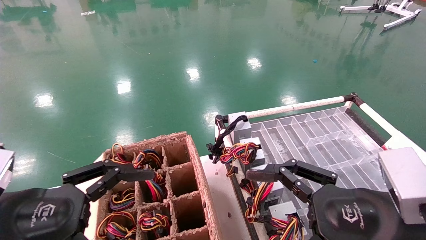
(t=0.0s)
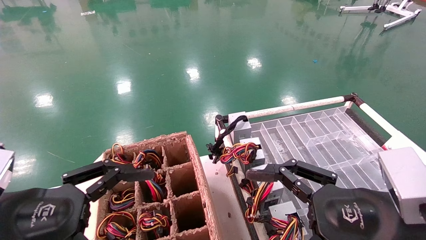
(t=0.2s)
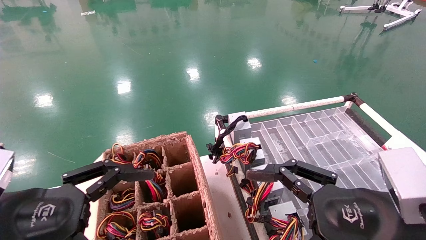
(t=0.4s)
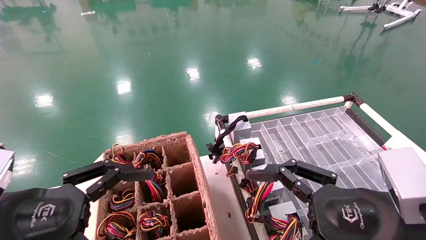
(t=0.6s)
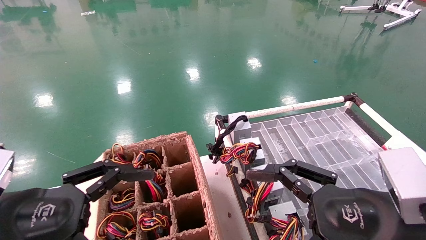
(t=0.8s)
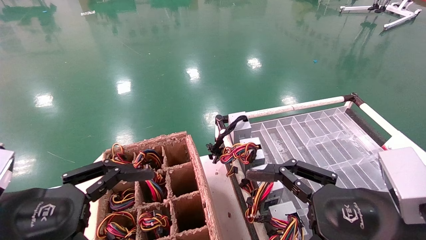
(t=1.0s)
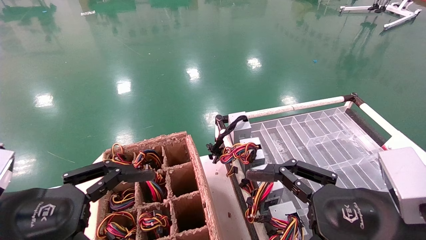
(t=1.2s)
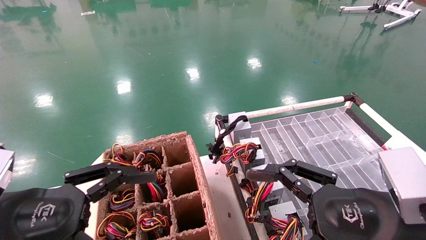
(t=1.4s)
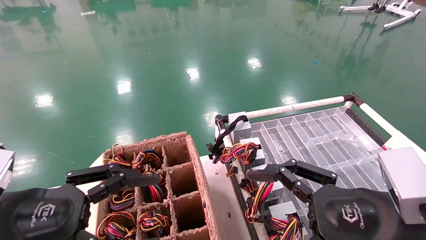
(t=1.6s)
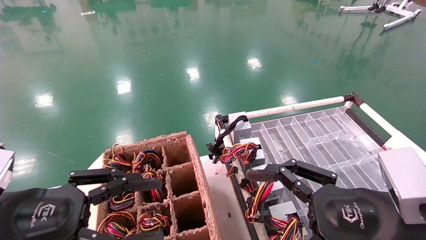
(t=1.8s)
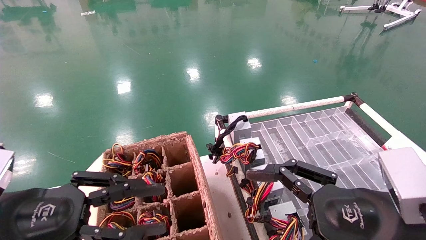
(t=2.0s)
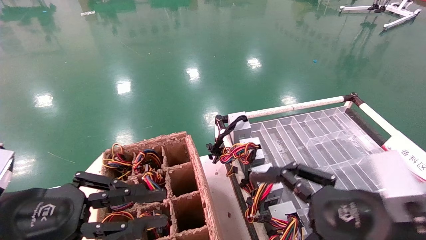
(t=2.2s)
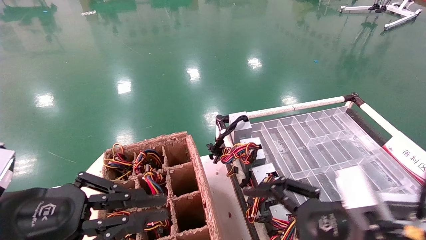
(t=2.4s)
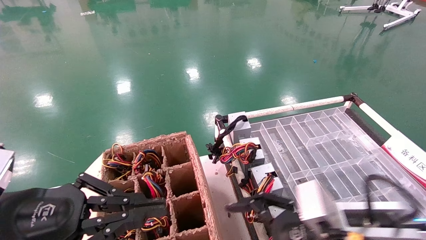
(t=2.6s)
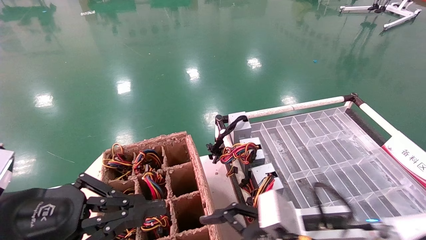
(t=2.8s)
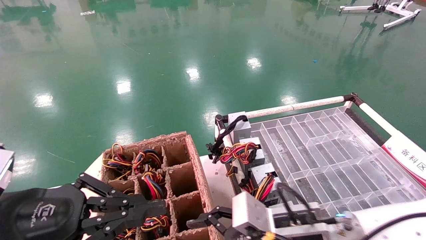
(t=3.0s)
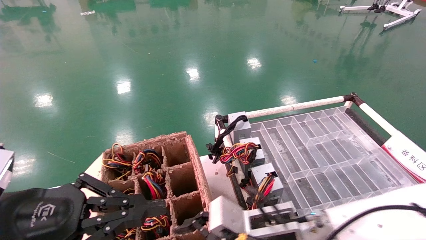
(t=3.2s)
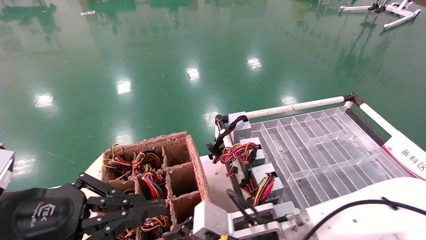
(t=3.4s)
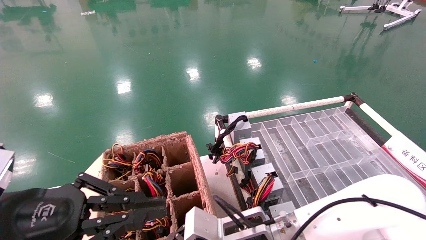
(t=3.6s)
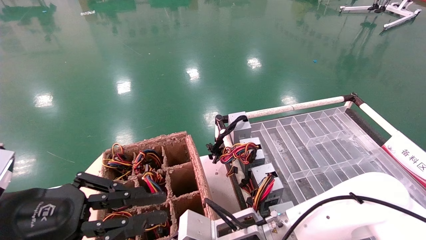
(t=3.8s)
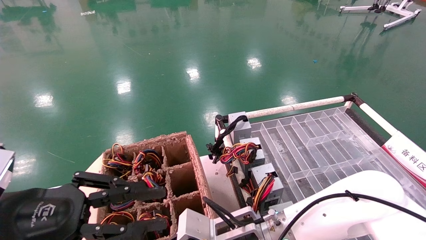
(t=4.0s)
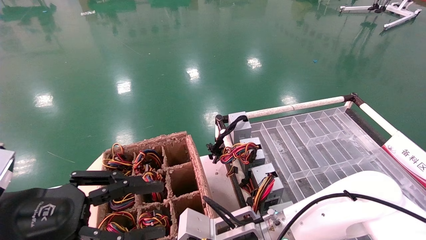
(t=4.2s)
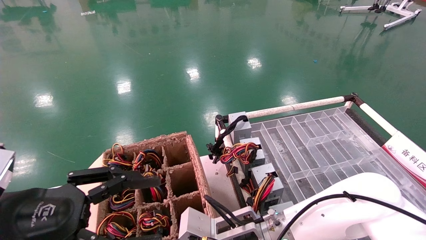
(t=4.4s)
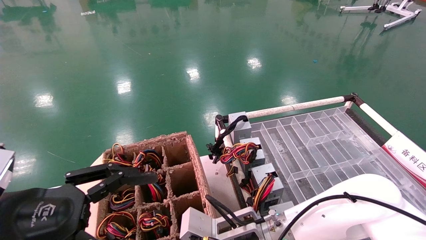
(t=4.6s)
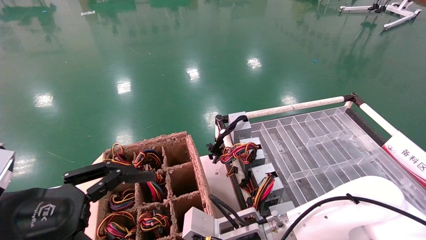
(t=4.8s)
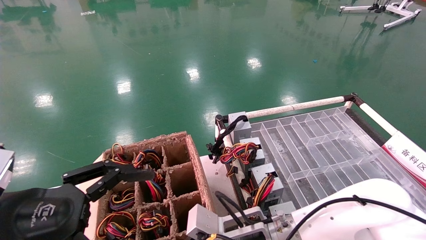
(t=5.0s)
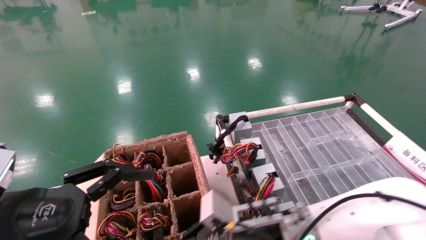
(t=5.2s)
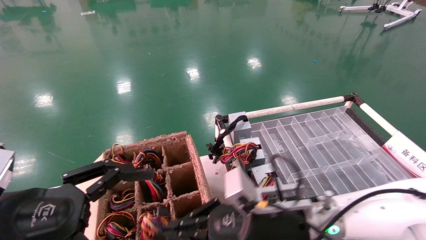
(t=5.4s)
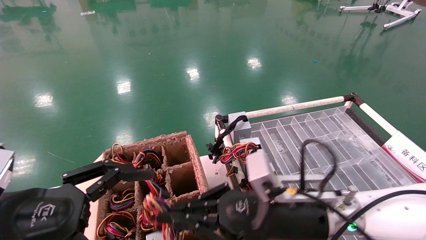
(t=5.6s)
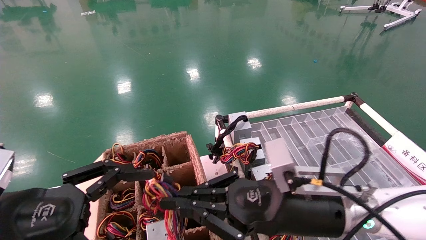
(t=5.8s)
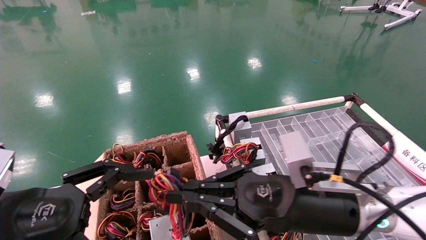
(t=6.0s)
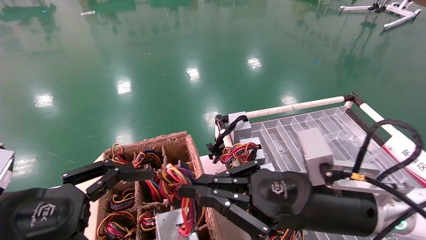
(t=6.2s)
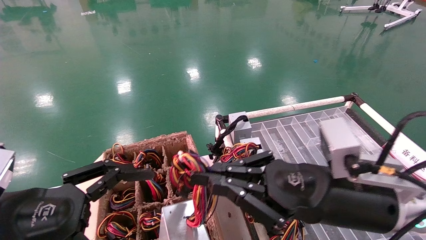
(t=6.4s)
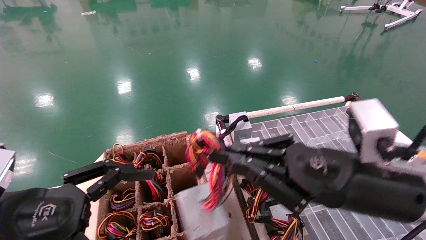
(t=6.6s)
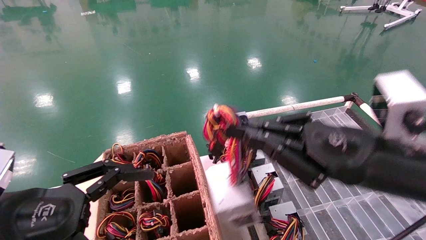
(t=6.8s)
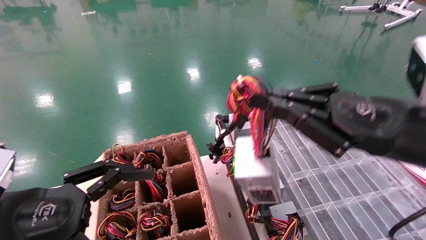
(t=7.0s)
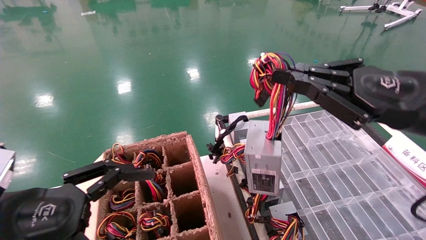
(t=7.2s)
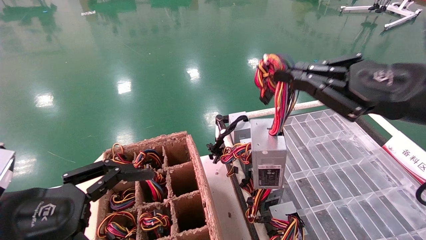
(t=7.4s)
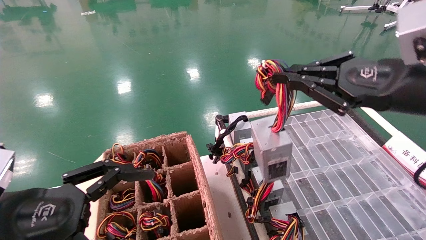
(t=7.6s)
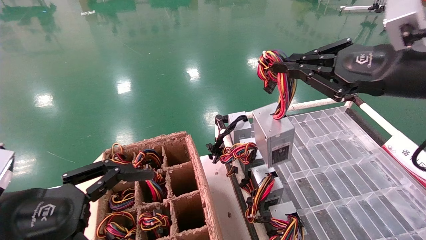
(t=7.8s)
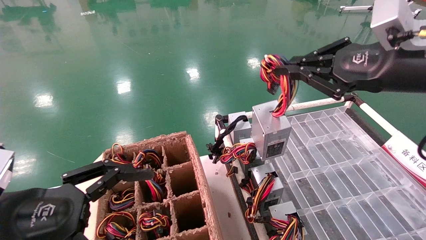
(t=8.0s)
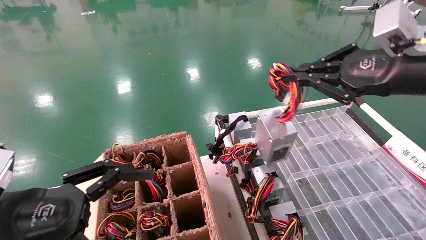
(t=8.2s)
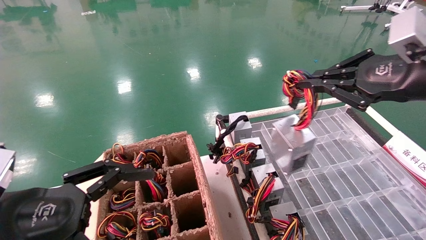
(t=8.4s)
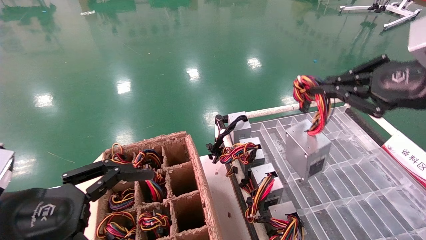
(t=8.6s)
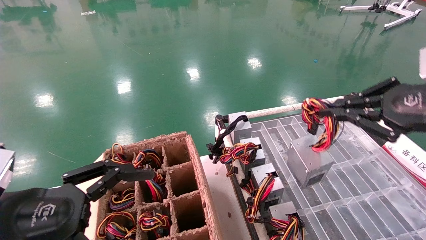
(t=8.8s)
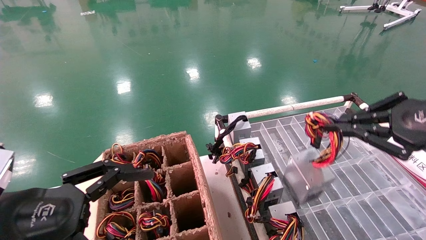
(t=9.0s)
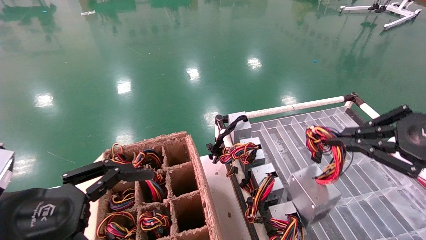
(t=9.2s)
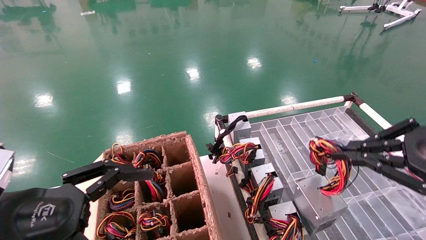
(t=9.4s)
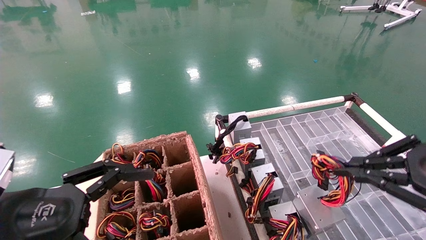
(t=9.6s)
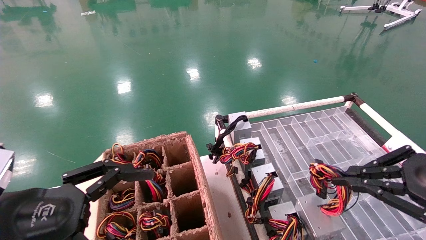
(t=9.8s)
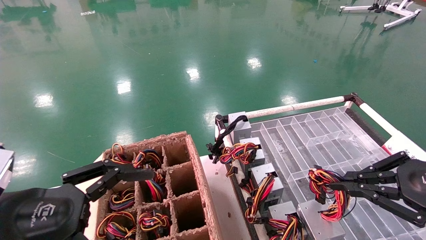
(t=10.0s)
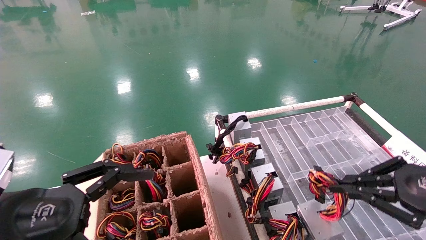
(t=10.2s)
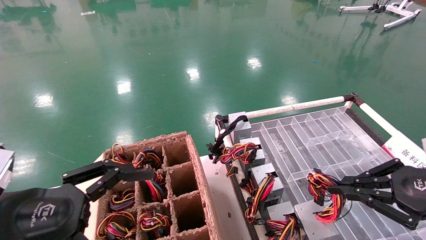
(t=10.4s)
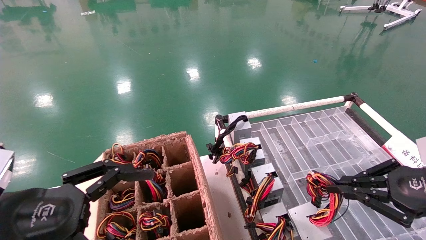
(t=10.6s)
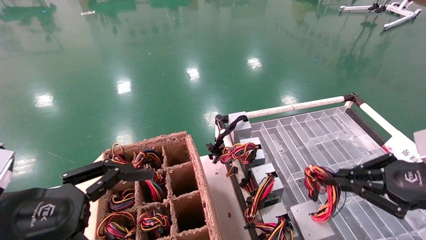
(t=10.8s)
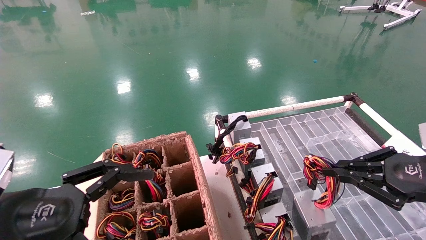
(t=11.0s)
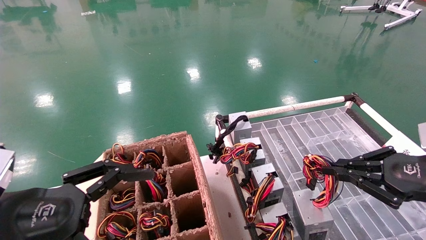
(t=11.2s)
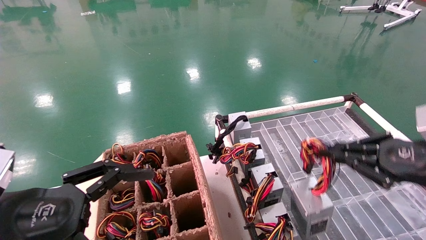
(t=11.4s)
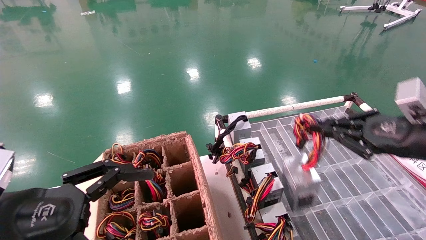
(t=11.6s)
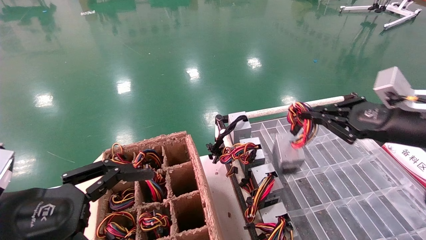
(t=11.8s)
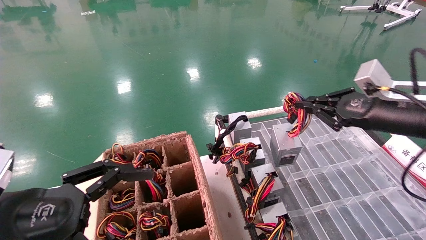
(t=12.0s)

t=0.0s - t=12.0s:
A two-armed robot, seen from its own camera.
Step, t=2.8s - t=4.8s: Grab and lift the power supply from the large box.
t=0.0s - t=1.6s: Both grippers stay put.
t=1.6s - t=3.0s: The right gripper shifts approximately 15 cm to the left, forward and downward; the left gripper closes.
t=3.0s - t=4.4s: The right gripper shifts approximately 5 cm to the left, and closes up. Meanwhile the left gripper opens up.
t=4.4s - t=6.0s: The right gripper heads upward, to the right and backward, covering approximately 15 cm, and closes up, while the left gripper opens its fingers.
t=6.0s - t=7.6s: The right gripper goes roughly 20 cm upward and to the right.
t=7.6s - t=9.0s: The right gripper is displaced to the right by some 10 cm.
t=9.0s - t=10.4s: The right gripper travels downward by about 10 cm.
t=10.4s - t=12.0s: The right gripper is displaced forward and upward by some 15 cm.

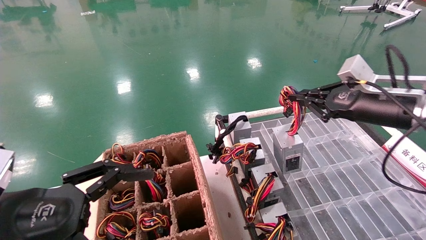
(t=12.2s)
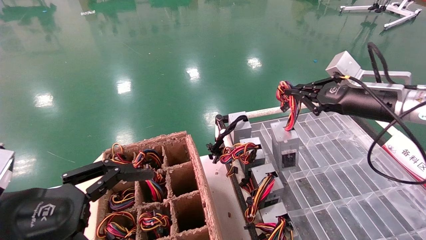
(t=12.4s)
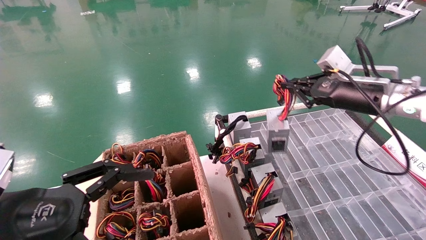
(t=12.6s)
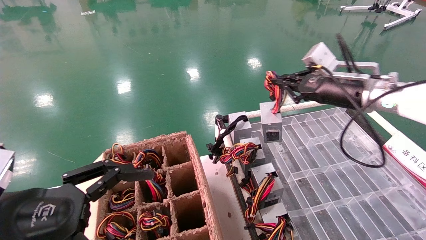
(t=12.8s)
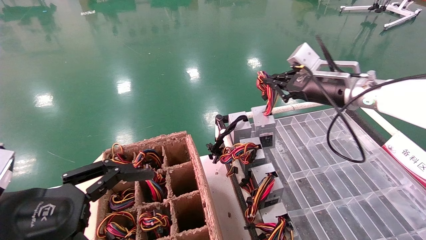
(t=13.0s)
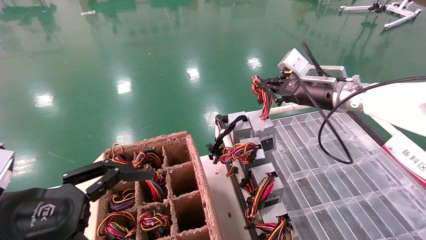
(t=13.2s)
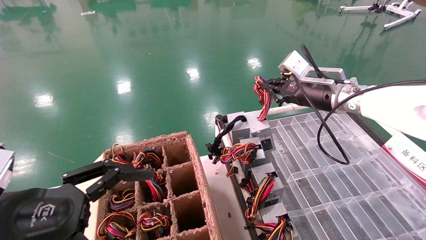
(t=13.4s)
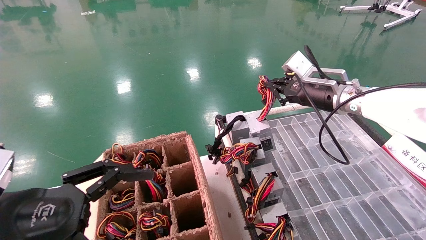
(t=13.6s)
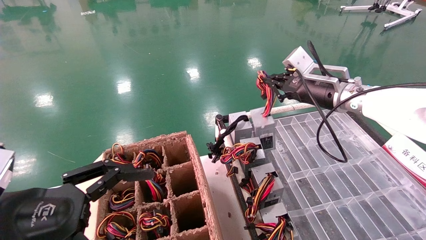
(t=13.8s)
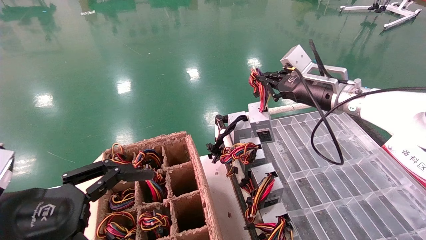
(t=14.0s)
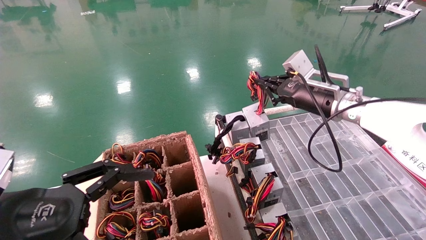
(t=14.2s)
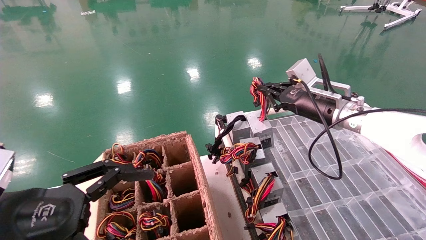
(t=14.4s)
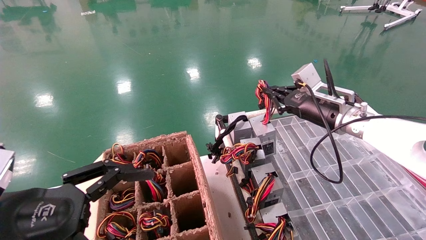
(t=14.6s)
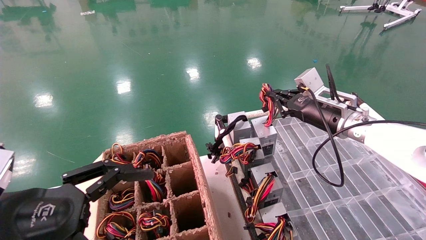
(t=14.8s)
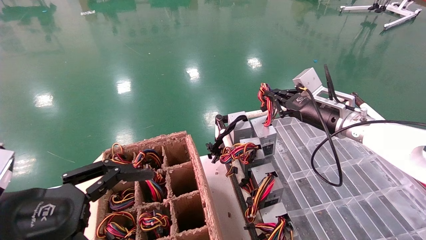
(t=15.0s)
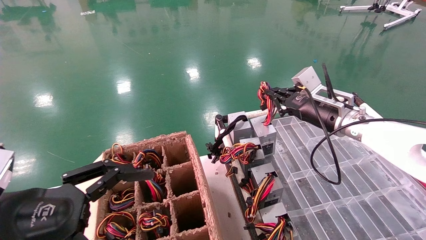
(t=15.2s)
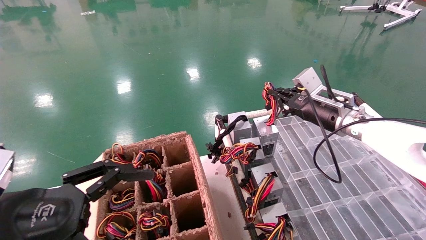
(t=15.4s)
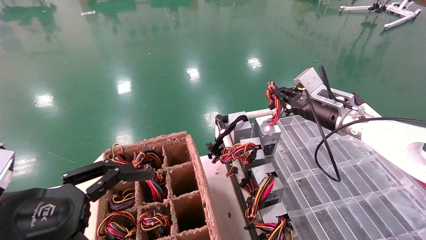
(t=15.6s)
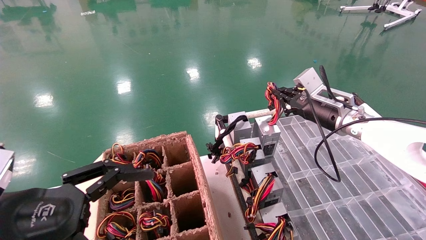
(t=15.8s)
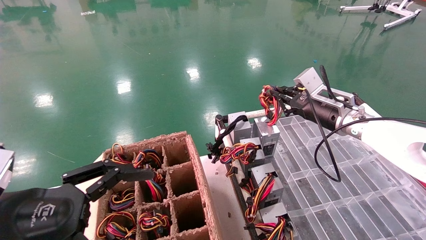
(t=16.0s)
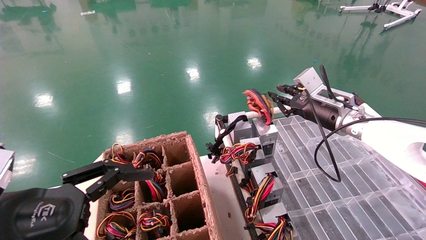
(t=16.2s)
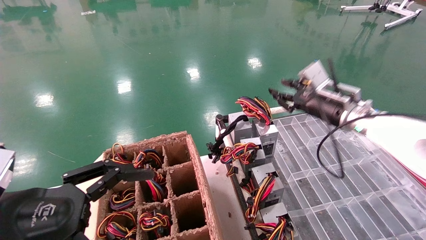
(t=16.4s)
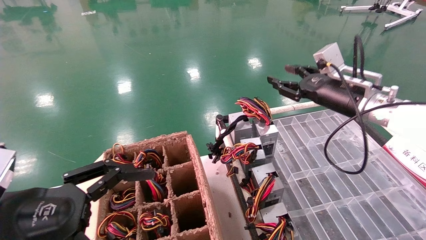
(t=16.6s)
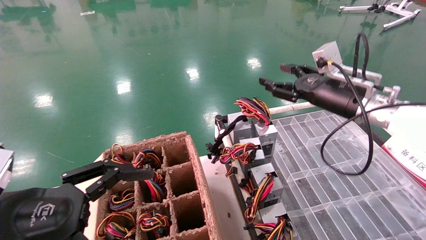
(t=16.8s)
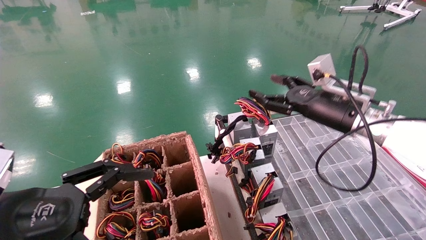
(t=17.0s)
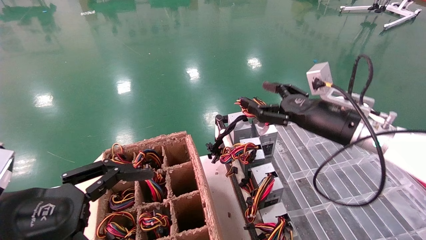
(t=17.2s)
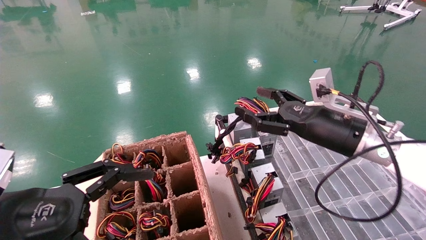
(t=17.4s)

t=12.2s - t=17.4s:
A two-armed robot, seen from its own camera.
Step, t=12.2s - t=15.8s: Place the power supply on the operating table.
t=12.2s - t=14.0s: The right gripper shifts approximately 10 cm to the left and forward.
t=14.0s - t=15.6s: The right gripper travels downward by roughly 5 cm.
t=15.6s - t=17.4s: The right gripper shifts some 10 cm backward, and opens.
